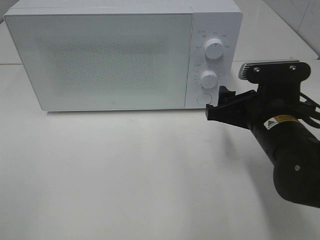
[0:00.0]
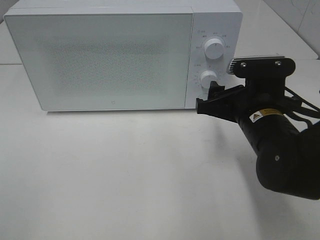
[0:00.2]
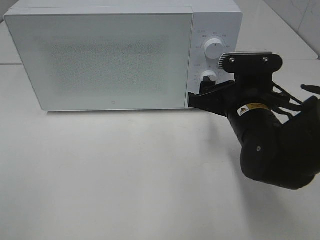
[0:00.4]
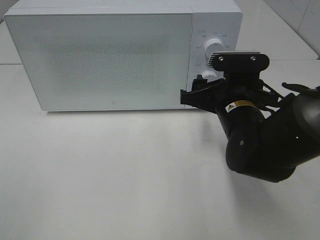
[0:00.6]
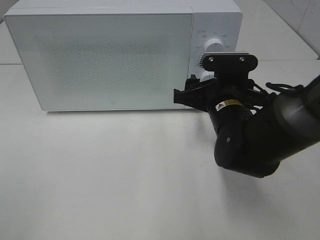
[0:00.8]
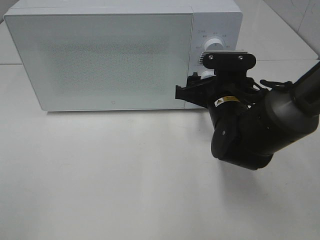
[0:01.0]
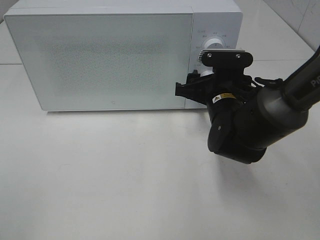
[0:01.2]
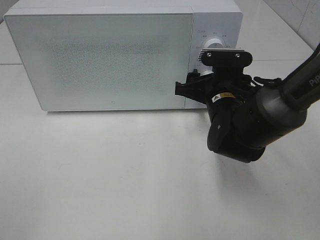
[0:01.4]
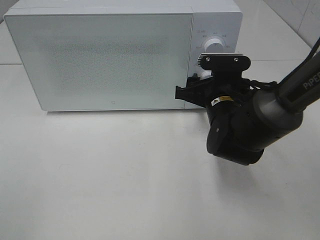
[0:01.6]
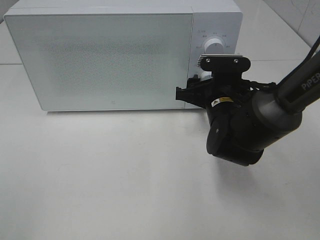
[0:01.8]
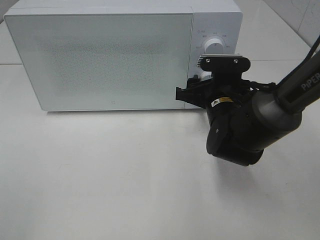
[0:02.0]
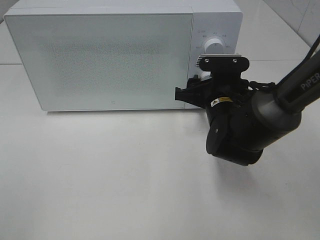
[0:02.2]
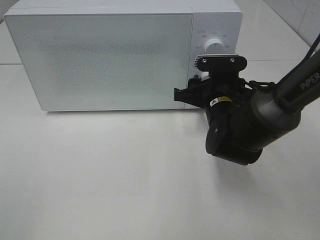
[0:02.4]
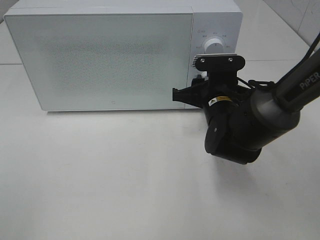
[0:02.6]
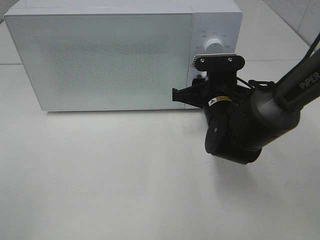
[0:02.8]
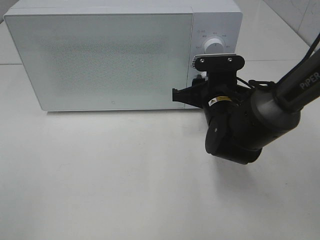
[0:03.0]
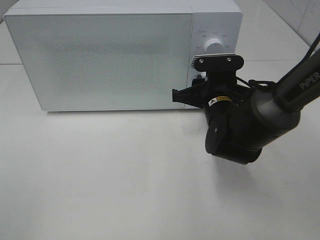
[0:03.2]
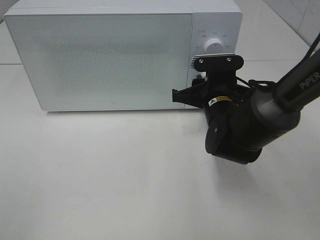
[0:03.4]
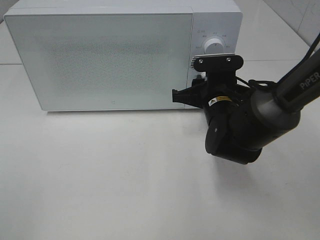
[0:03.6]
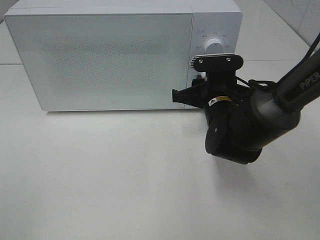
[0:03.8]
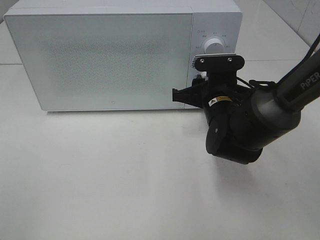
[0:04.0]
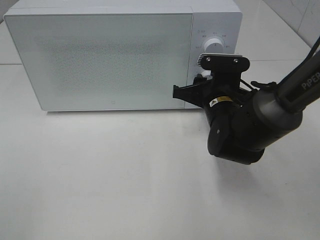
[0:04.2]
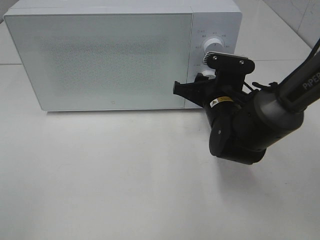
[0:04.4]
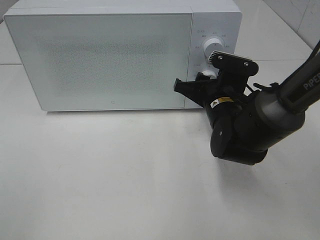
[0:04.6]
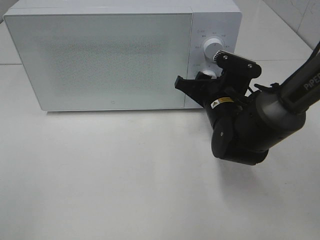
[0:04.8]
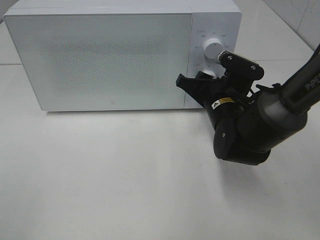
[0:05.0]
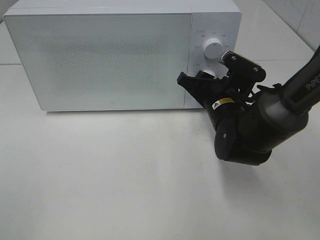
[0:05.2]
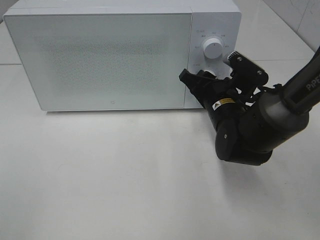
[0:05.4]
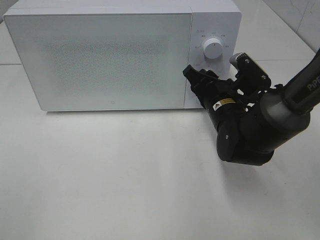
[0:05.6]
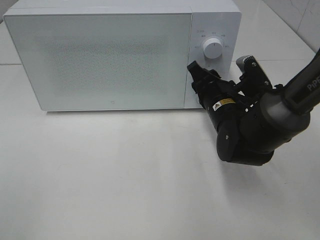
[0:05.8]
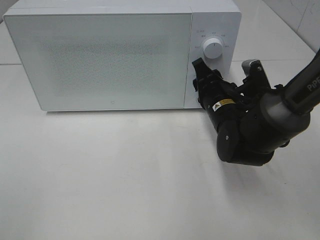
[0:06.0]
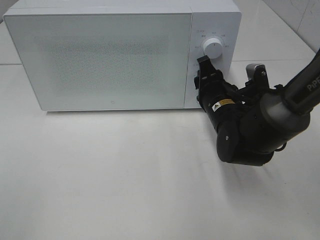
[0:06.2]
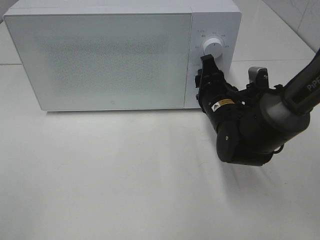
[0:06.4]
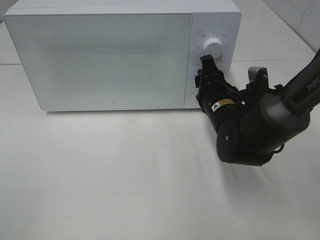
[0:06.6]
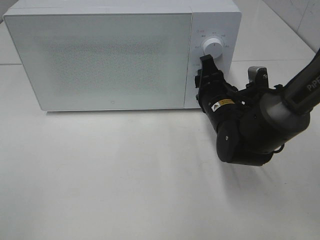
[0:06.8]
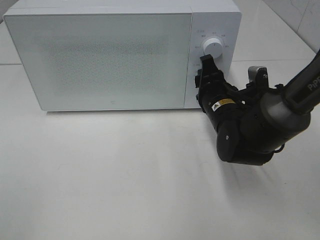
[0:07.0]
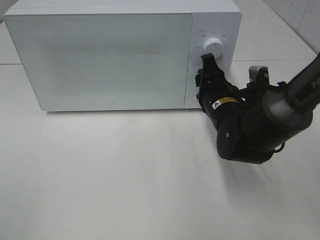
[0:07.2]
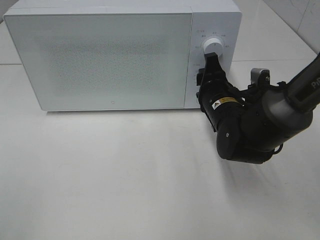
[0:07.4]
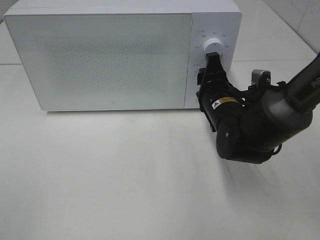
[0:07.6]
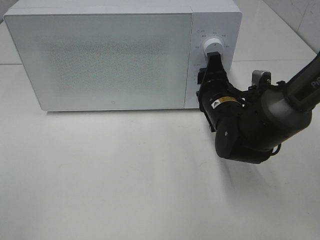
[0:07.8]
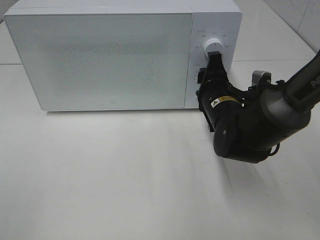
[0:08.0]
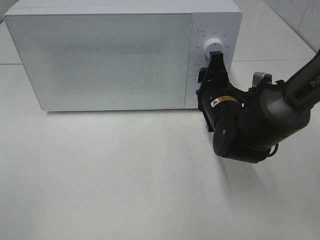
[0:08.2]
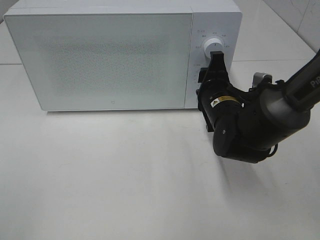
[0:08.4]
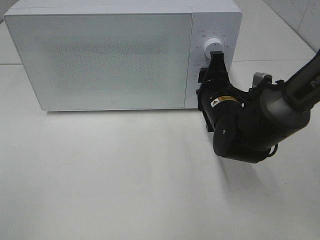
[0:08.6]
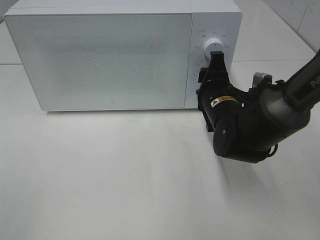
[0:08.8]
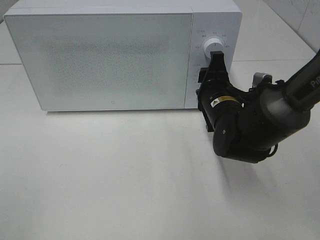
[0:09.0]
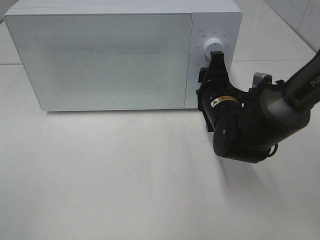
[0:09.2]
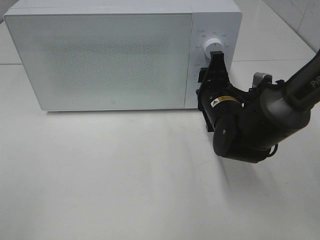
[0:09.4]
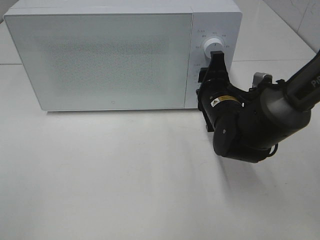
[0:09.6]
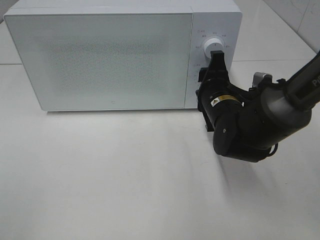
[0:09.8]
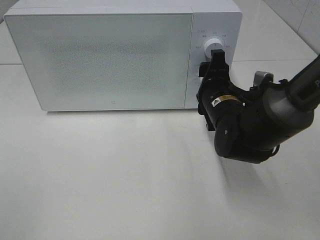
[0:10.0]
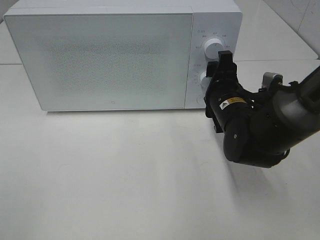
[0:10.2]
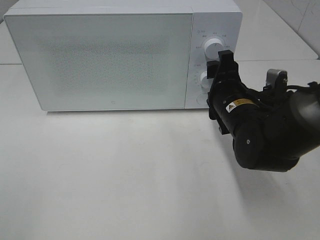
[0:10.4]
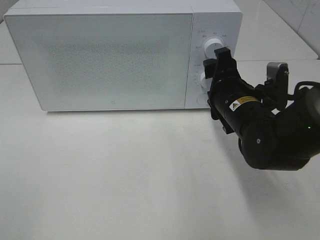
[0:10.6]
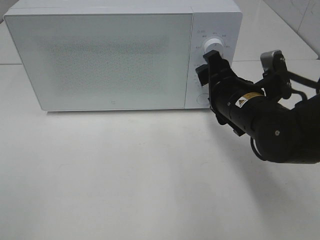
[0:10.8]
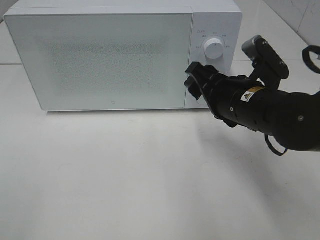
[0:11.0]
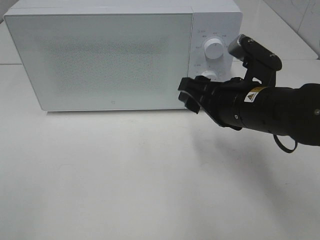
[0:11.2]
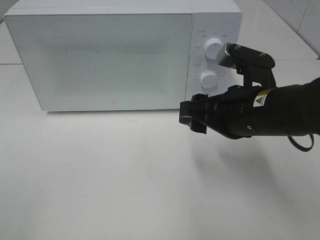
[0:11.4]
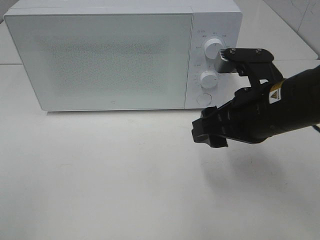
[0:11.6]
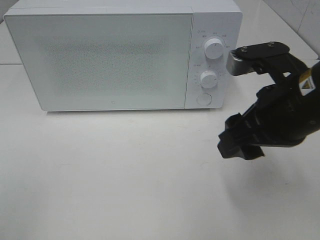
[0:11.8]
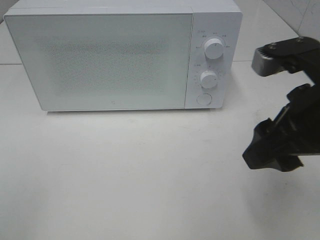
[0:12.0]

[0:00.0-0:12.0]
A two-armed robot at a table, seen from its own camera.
Task of the whole recording: Heat the burger.
Step, 0:00.0 to 0:10.2: Right hand: twist timer button.
0:00.0 to 0:01.6: The right gripper goes some 10 cm forward.
0:01.6 to 0:03.0: The right gripper closes.
0:03.0 to 0:04.4: The grippers move only a little.
0:07.6 to 0:10.4: The grippers make only small movements.
0:10.4 to 0:12.0: The right gripper travels upward and backward by about 20 cm.

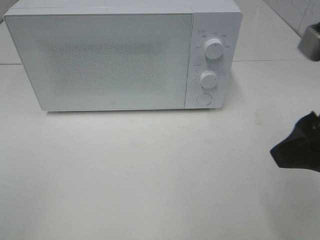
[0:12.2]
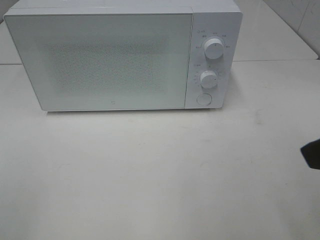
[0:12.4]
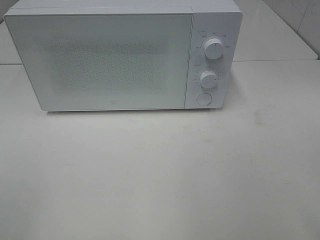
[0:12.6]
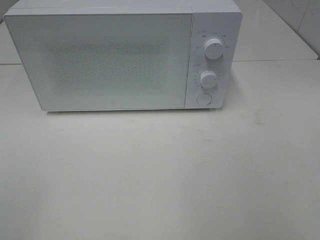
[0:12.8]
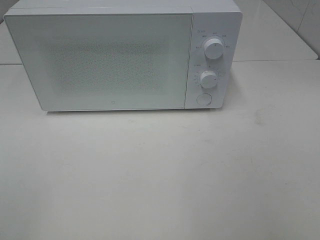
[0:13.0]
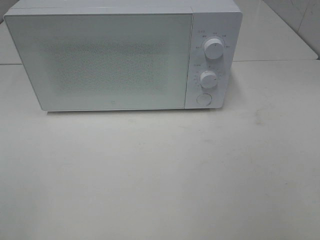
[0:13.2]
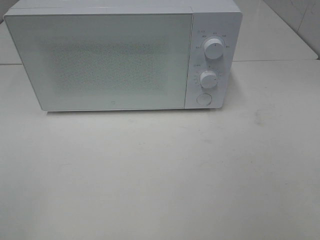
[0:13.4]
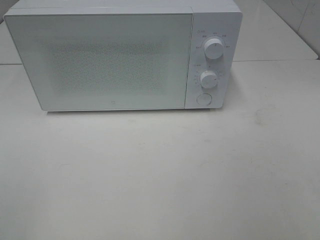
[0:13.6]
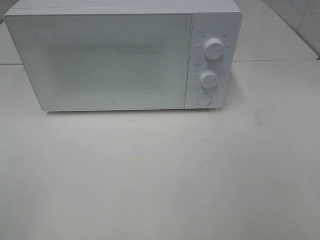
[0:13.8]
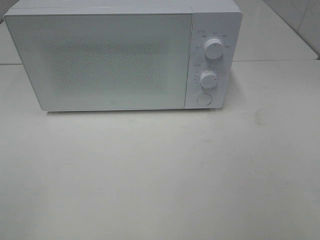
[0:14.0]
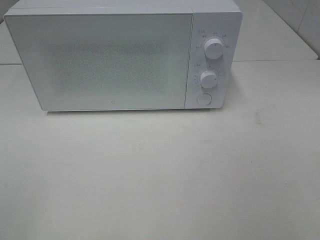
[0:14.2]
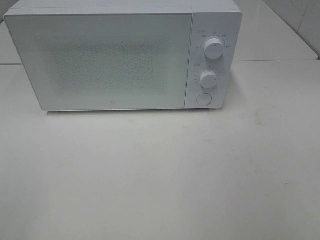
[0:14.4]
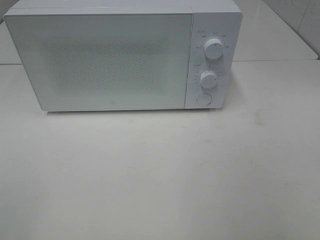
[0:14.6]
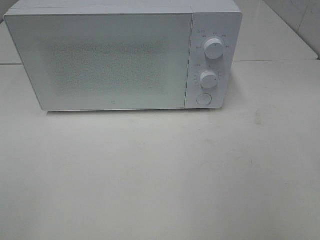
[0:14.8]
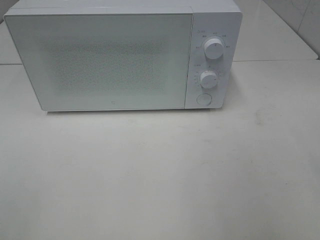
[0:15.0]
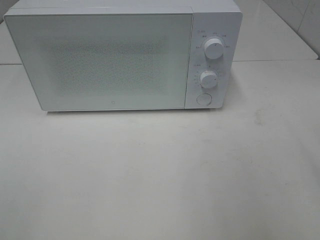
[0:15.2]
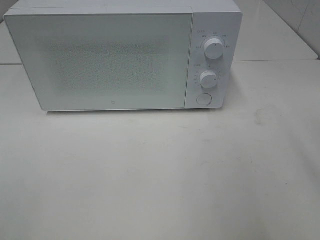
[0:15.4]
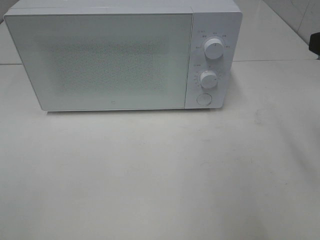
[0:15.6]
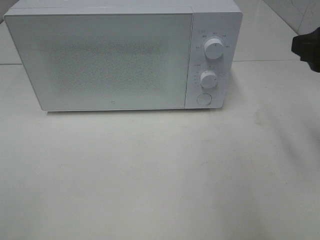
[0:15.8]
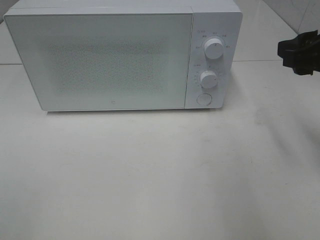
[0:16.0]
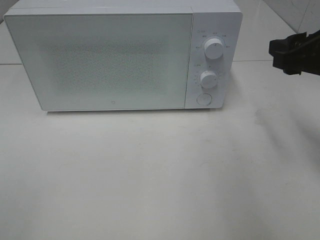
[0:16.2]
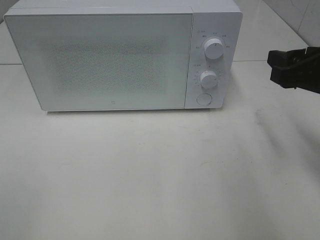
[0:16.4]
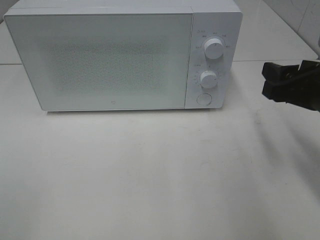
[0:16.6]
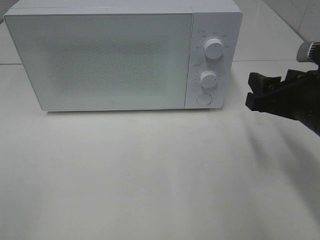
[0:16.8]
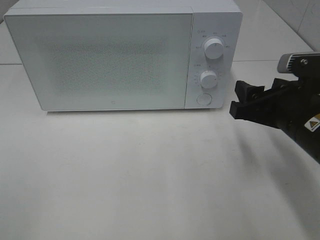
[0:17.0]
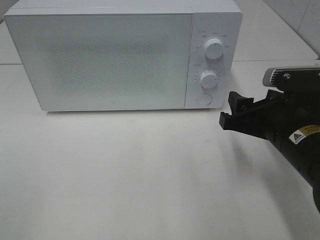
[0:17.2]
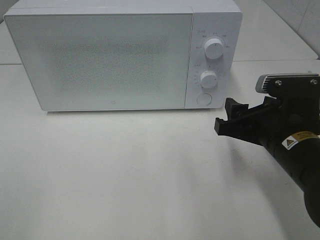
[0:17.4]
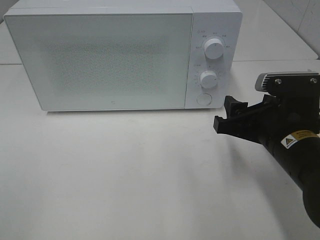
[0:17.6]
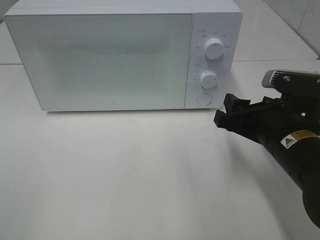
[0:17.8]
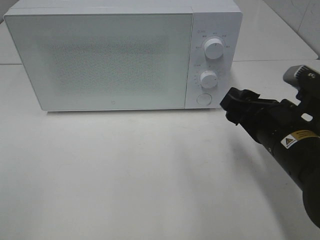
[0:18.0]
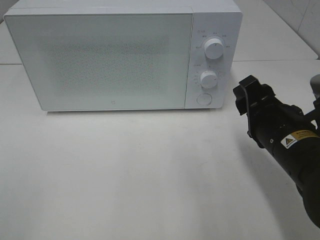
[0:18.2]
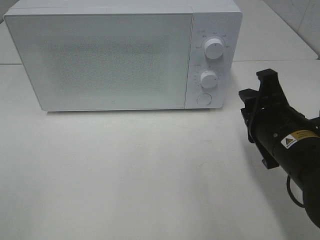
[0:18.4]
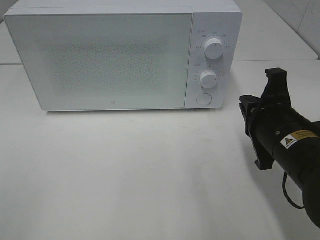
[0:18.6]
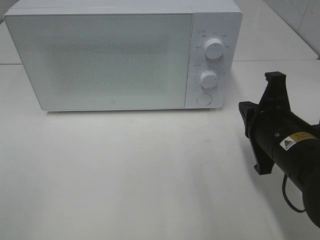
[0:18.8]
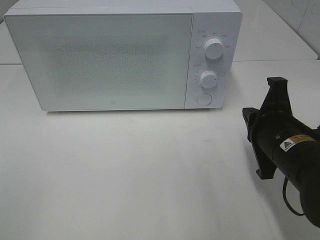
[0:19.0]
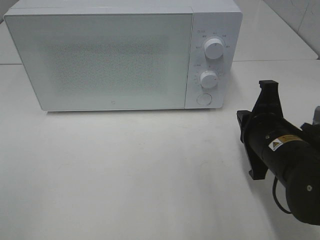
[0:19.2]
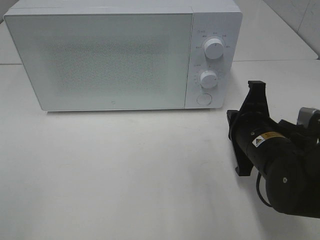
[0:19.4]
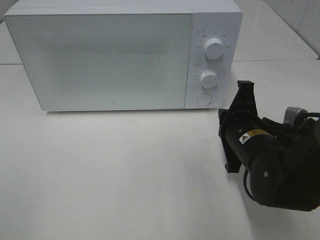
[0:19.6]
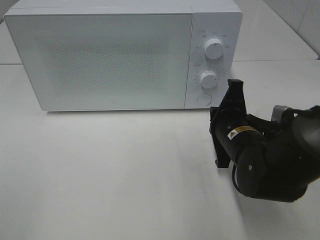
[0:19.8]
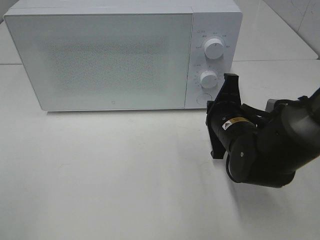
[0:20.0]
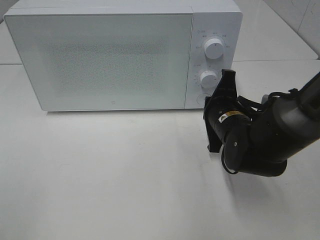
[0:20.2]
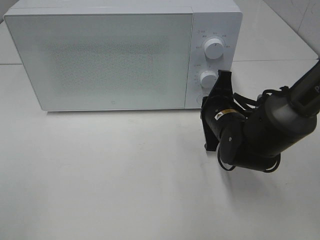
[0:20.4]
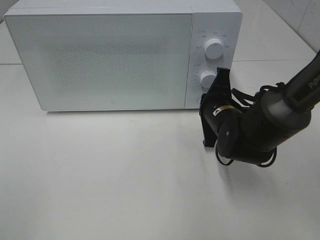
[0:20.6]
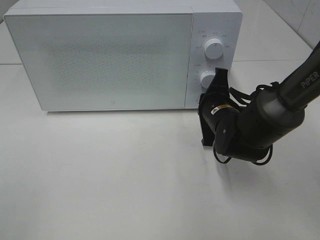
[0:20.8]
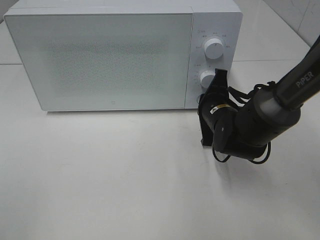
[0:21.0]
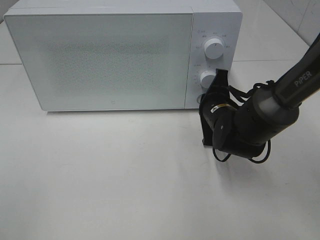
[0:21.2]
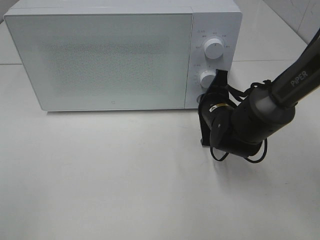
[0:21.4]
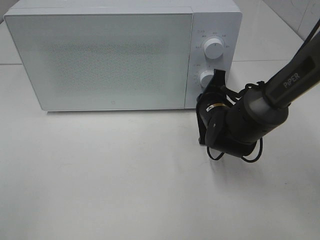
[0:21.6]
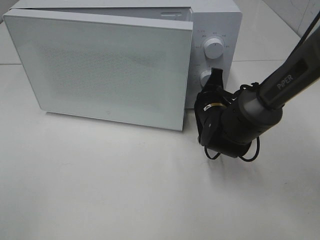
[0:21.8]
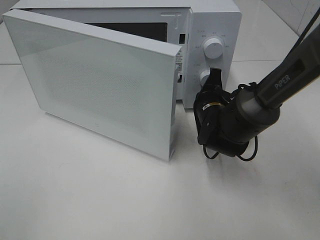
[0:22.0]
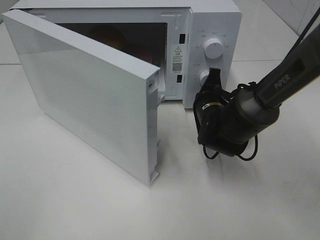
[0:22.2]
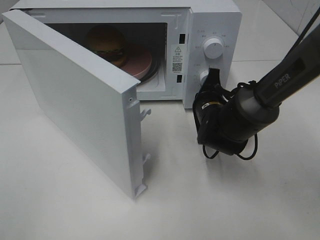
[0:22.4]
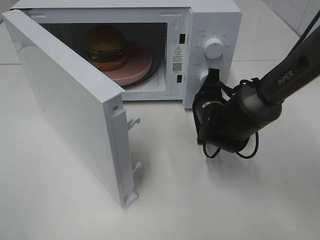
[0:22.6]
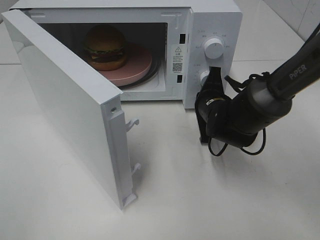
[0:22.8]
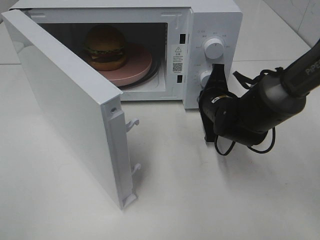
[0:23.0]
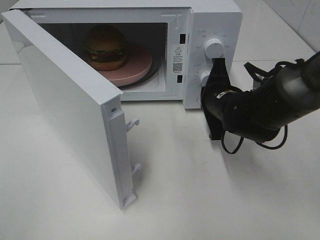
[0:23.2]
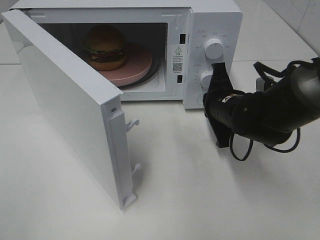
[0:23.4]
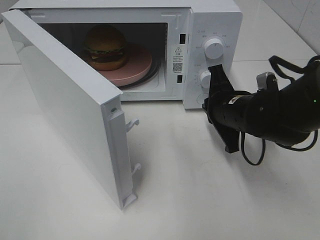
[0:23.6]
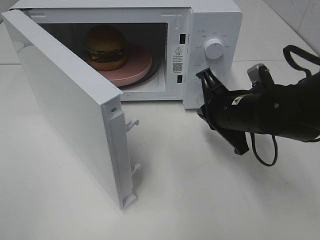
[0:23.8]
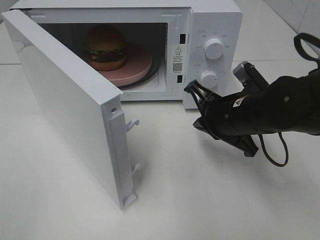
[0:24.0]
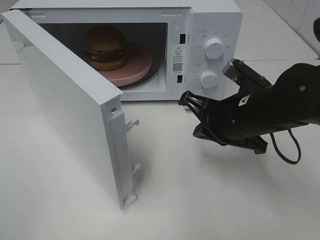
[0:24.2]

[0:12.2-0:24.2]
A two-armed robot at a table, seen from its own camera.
Task of the whole recording: Heat the burger.
Step, 0:12.2 to 0:23.4: Right hand: press the switch.
0:12.2 to 0:13.8: The right gripper is displaced backward and to the right by approximately 15 cm.
0:15.2 to 0:16.6: The right gripper shifts roughly 15 cm downward and forward.
0:16.6 to 0:18.2: The right gripper moves to the left, roughly 5 cm.
0:18.2 to 0:19.8: The right gripper heads forward, covering about 5 cm, and closes up.
0:19.8 to 0:21.2: The right gripper is displaced forward by about 10 cm.
0:22.6 to 0:24.2: The right gripper moves backward and upward, approximately 15 cm.
